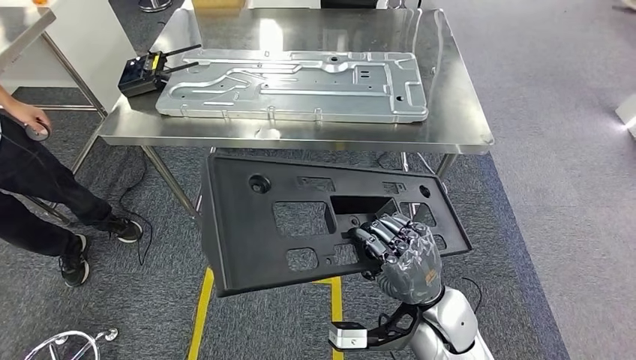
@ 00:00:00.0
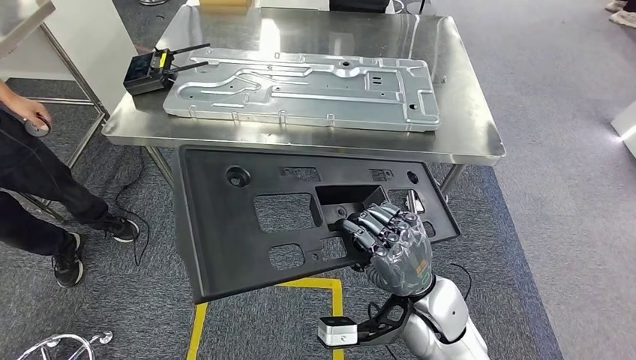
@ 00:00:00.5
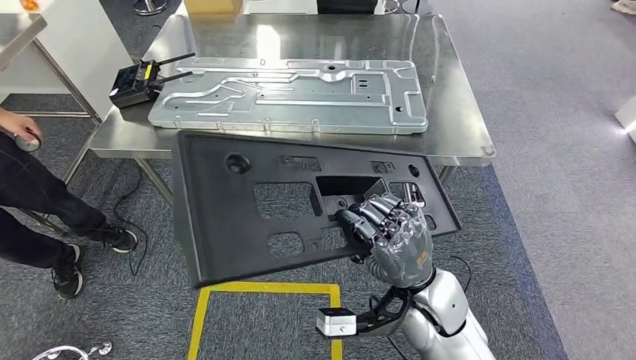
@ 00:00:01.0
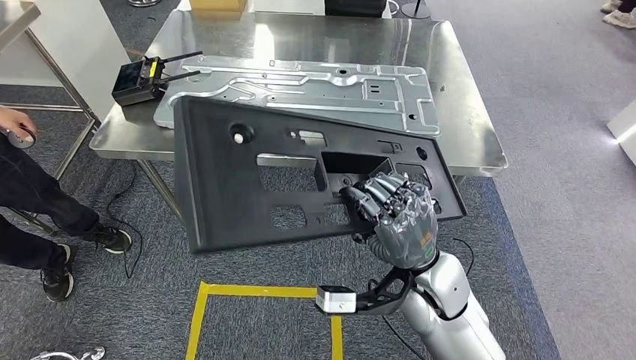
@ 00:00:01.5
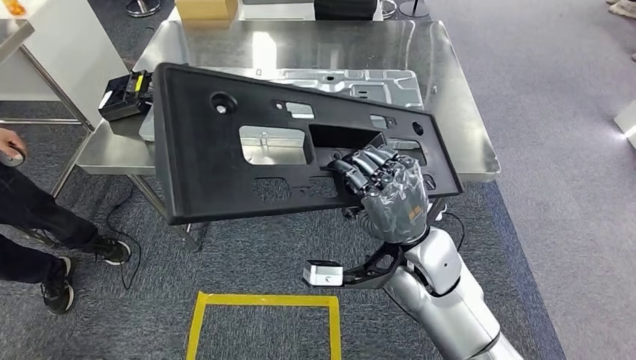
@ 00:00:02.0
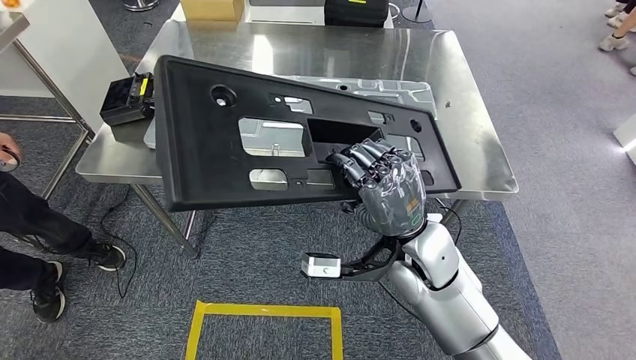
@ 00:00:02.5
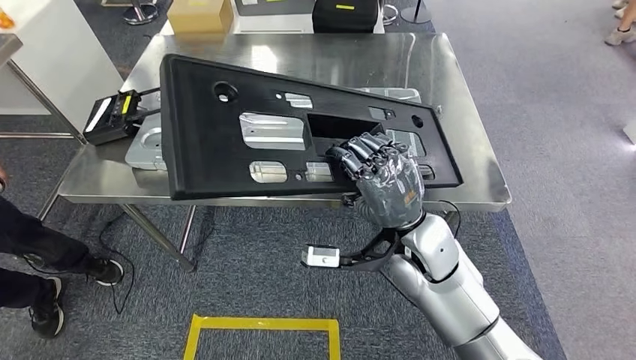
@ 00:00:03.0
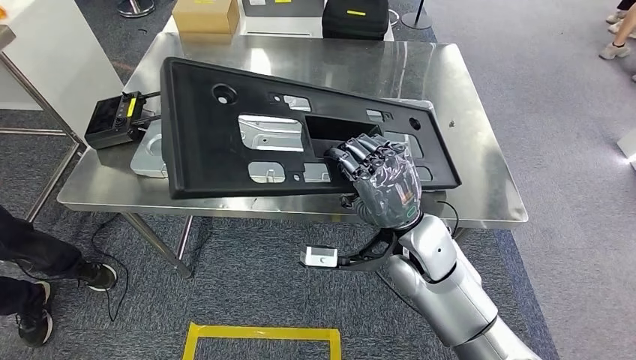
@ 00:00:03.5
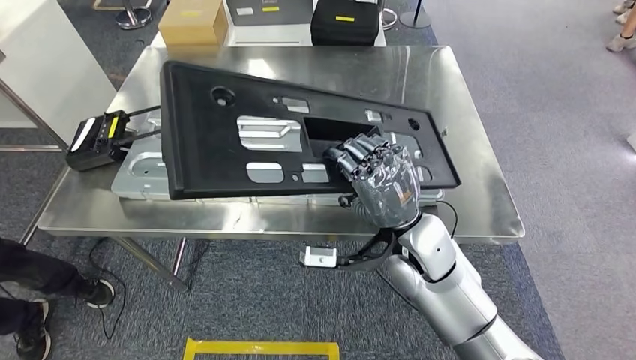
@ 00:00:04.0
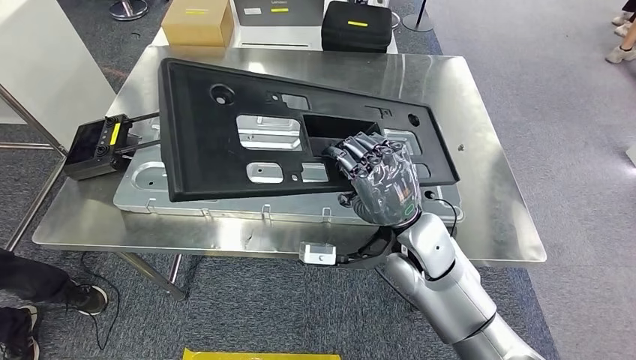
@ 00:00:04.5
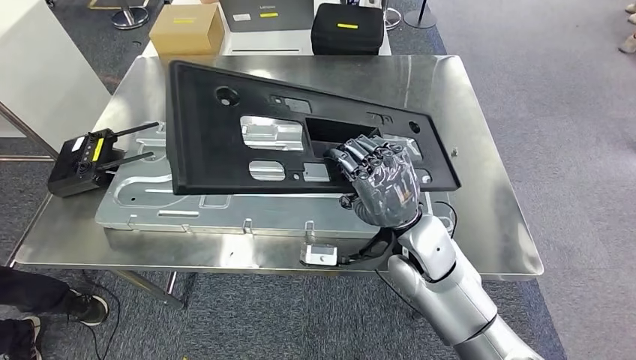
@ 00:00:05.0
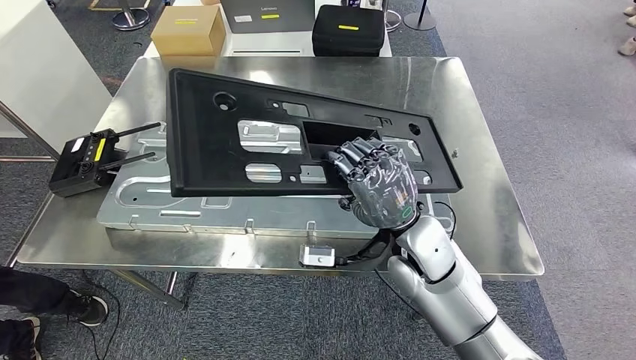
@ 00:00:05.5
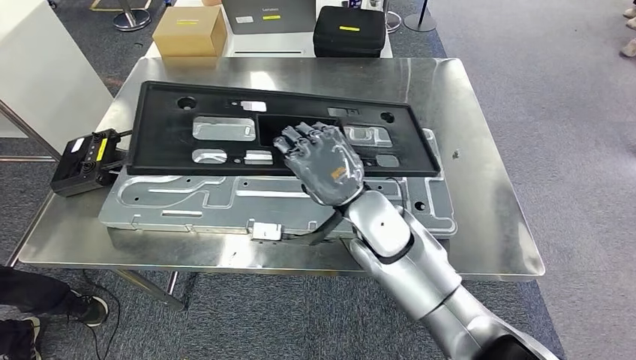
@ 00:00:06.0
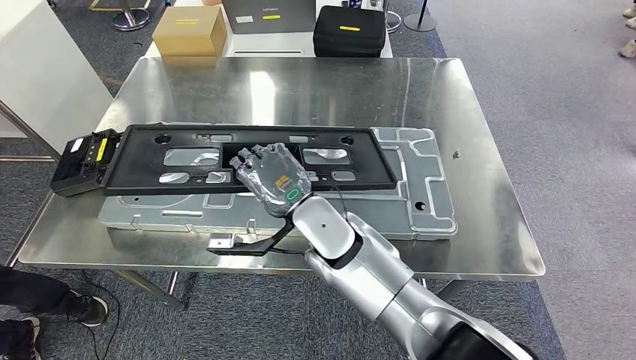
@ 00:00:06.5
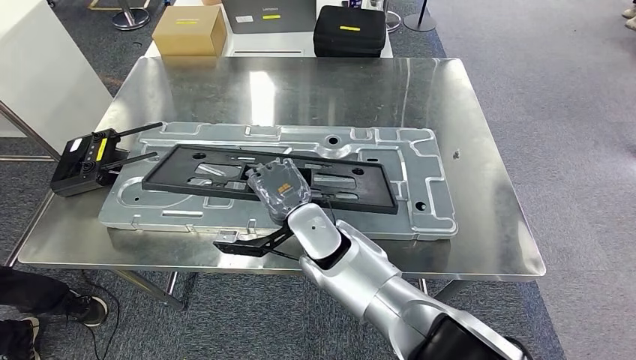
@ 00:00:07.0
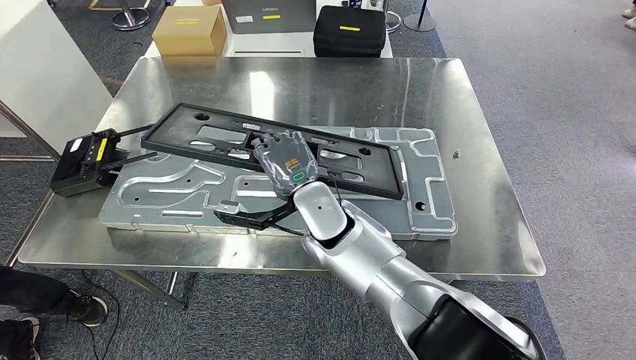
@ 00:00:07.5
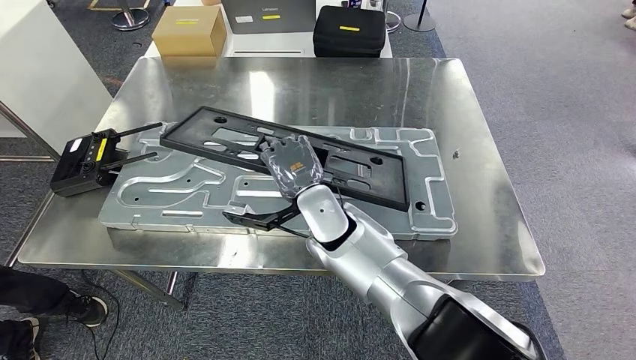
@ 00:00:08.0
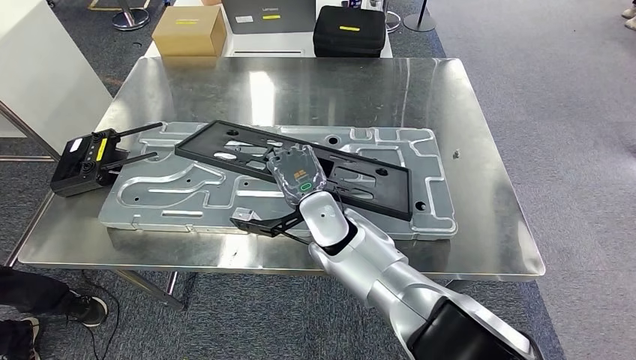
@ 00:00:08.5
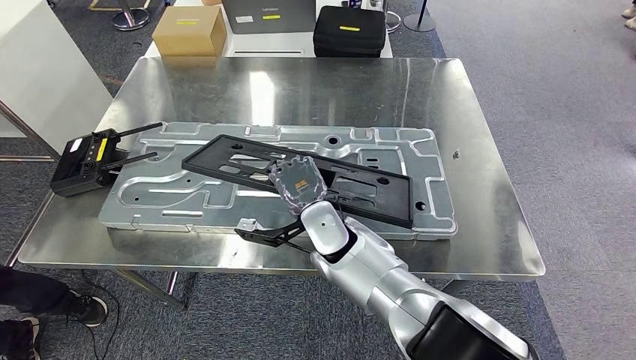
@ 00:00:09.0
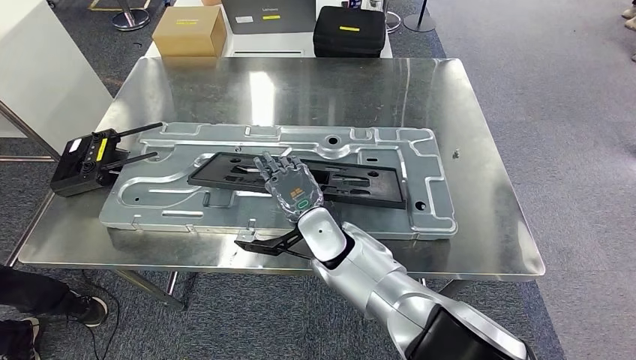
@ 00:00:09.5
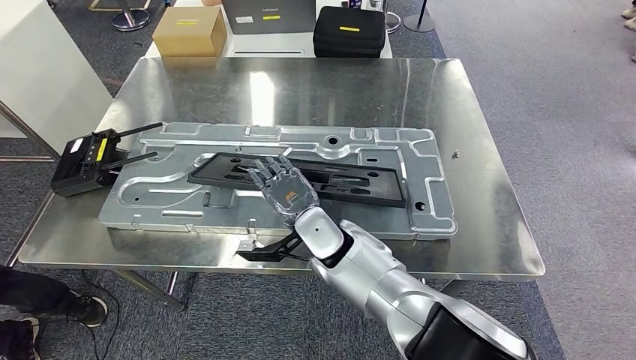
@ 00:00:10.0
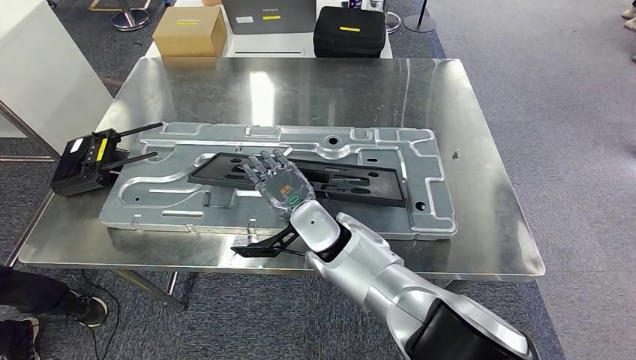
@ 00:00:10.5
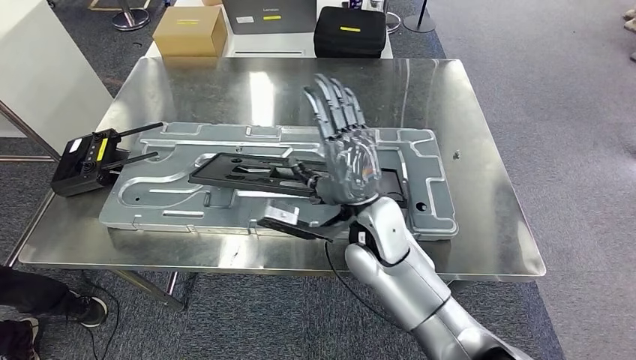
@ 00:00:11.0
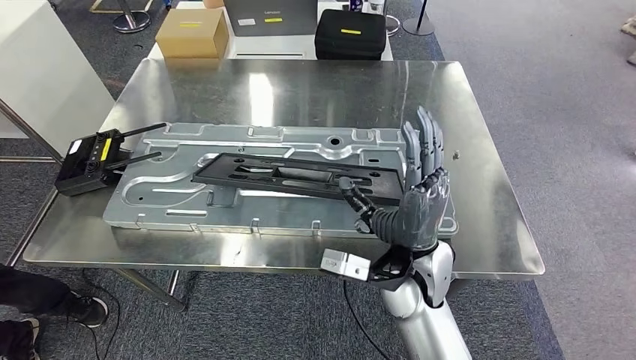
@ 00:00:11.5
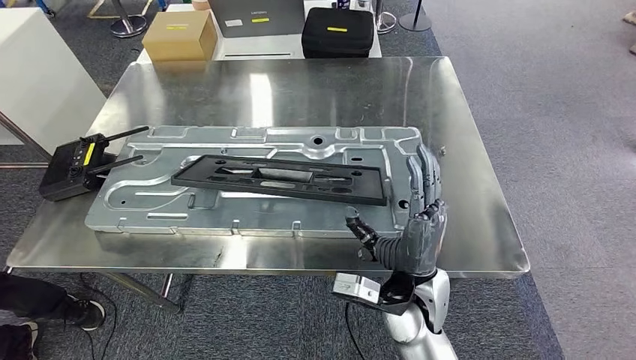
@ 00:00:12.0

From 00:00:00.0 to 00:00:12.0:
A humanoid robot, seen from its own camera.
Step, from 00:00:00.5 to 00:00:11.0: Insert the large material into the corresponding slot on the workbench.
From 00:00:06.0 to 00:00:08.0: The right hand goes some 5 cm to the left.
From 00:00:08.0 to 00:00:10.0: The hands move only a little.

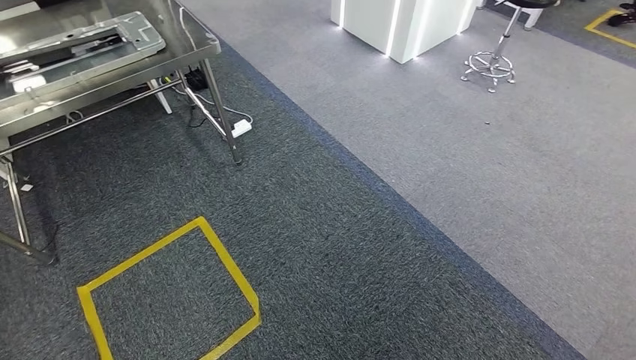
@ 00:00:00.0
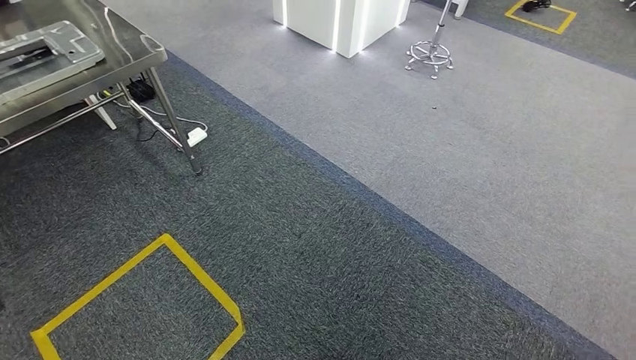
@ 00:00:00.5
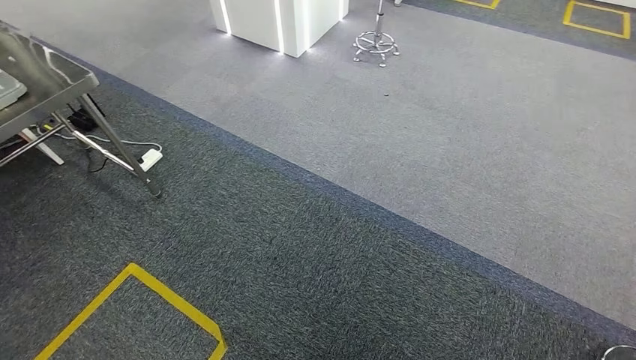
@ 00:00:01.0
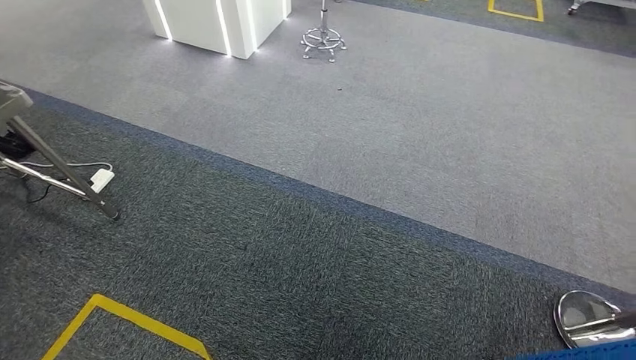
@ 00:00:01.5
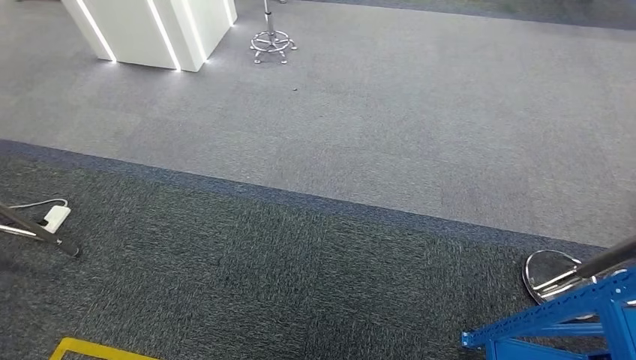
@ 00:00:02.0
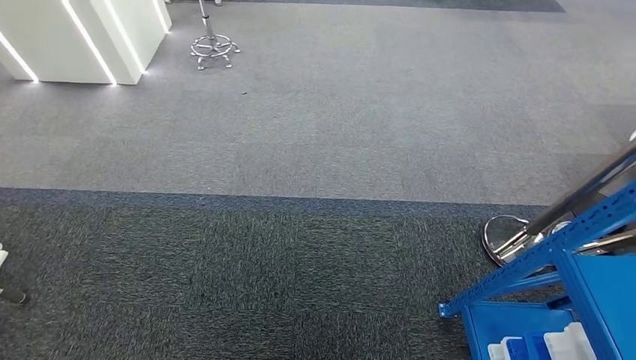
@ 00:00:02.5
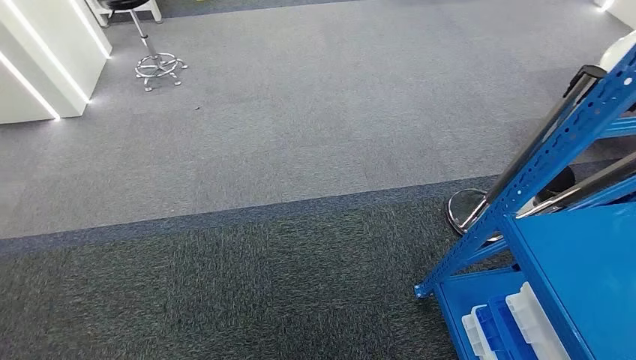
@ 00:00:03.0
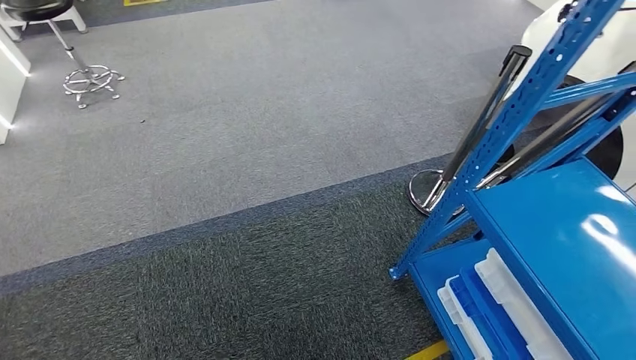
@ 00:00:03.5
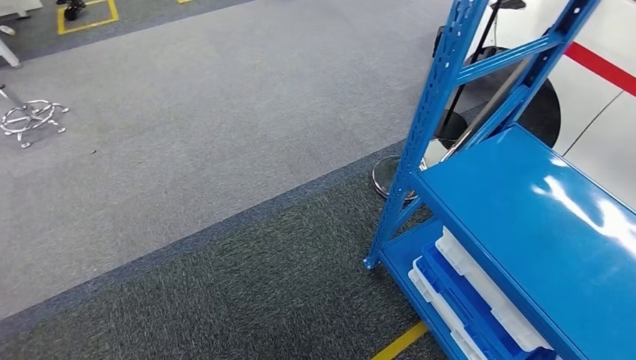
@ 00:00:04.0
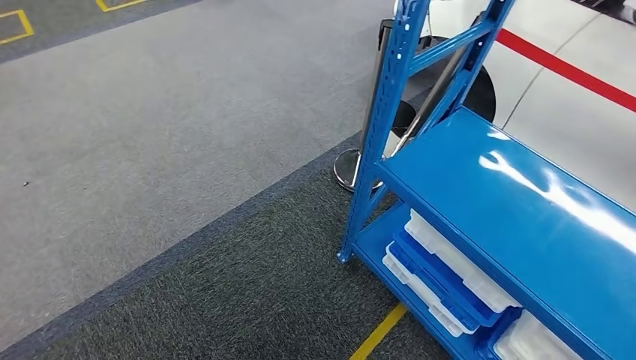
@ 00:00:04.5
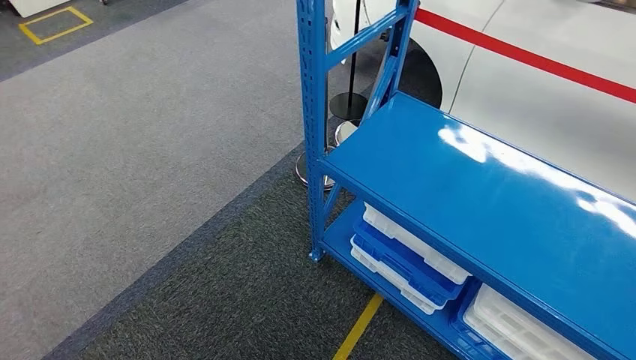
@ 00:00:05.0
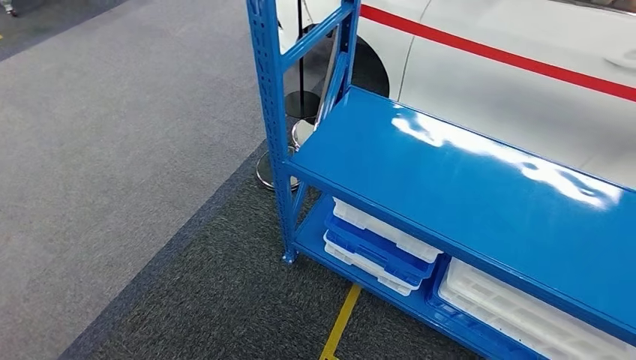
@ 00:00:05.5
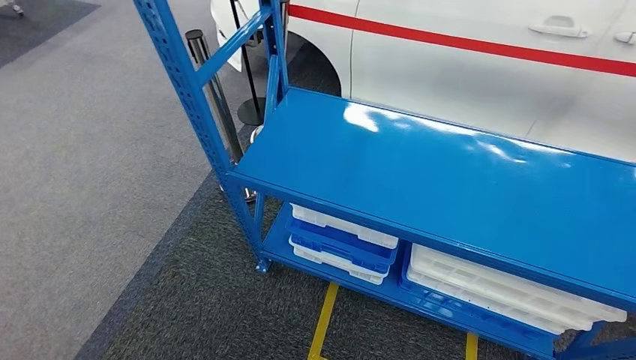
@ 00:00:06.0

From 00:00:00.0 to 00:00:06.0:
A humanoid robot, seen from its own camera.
Step, from 00:00:00.0 to 00:00:06.0: Return to the initial position at the shelf.
